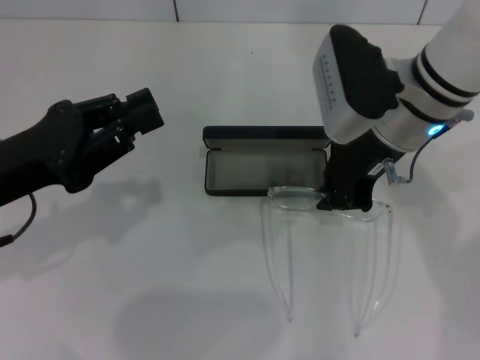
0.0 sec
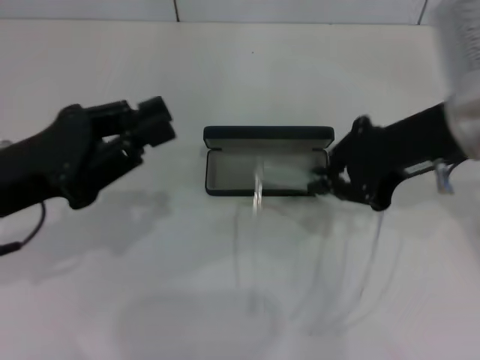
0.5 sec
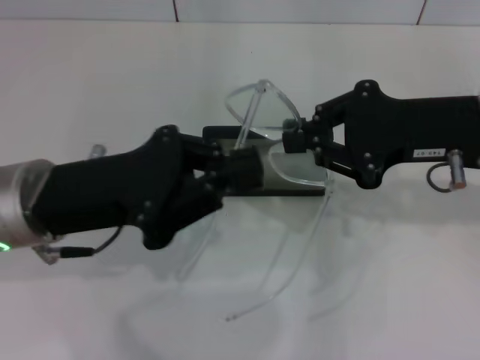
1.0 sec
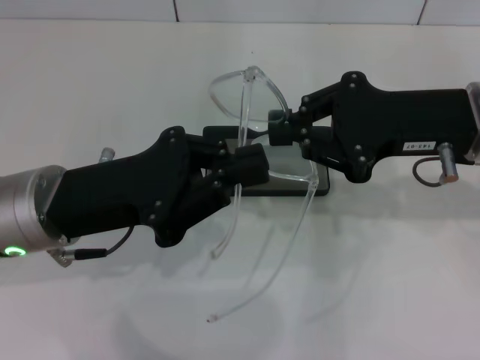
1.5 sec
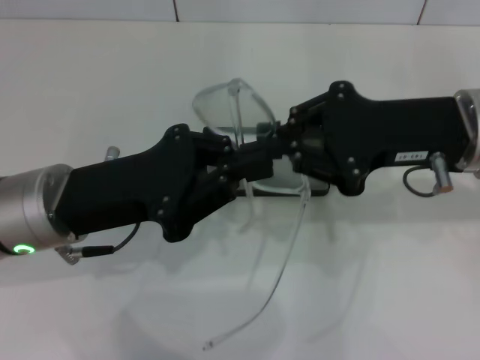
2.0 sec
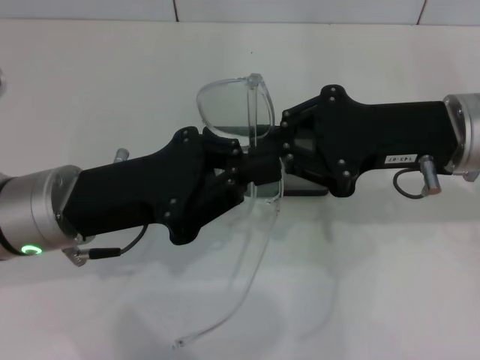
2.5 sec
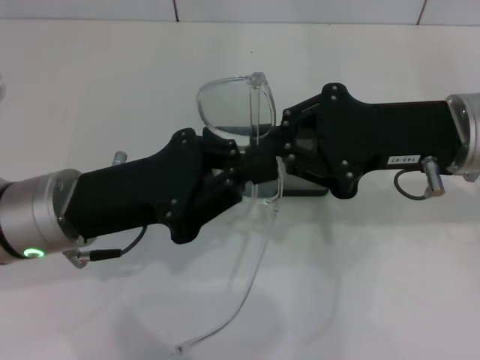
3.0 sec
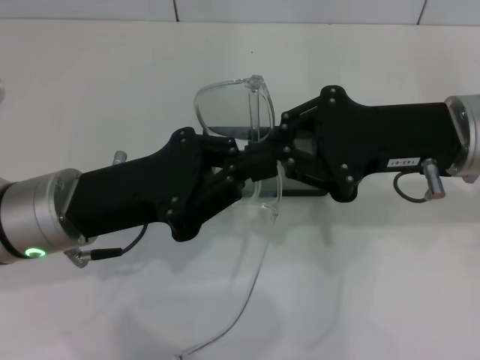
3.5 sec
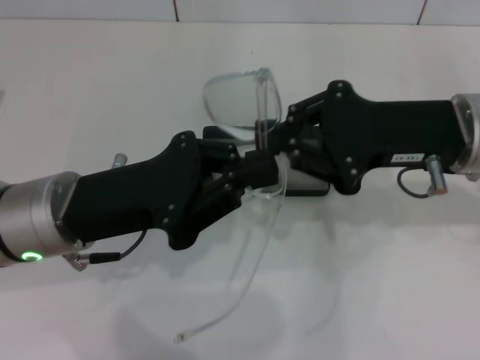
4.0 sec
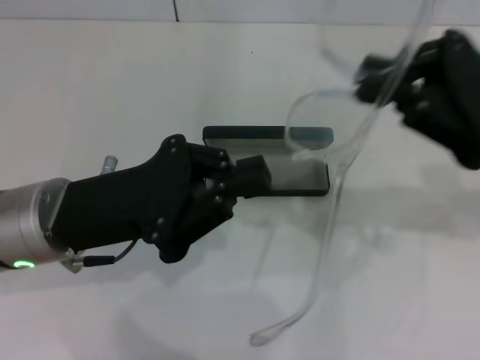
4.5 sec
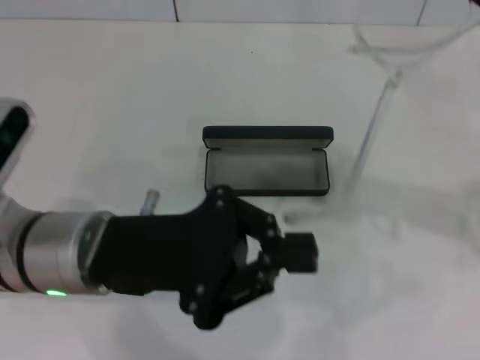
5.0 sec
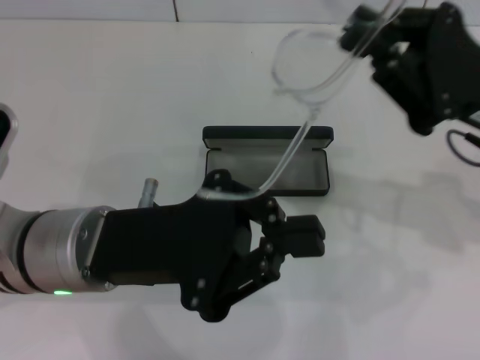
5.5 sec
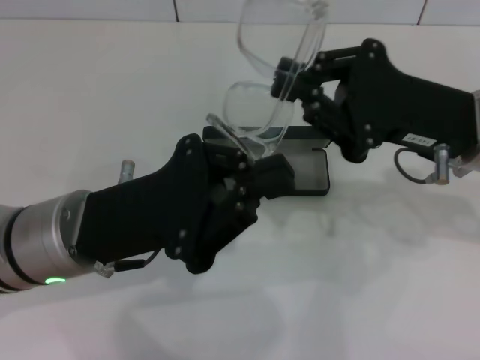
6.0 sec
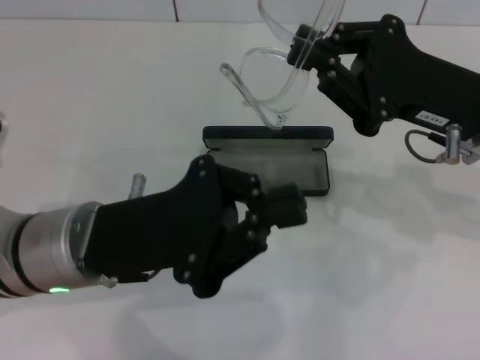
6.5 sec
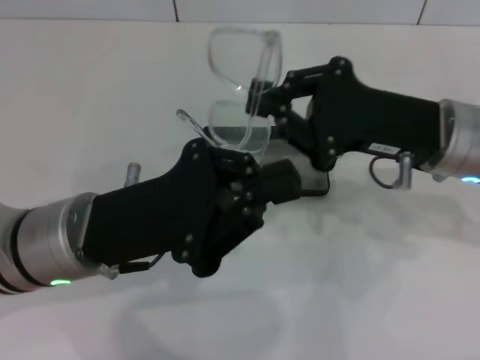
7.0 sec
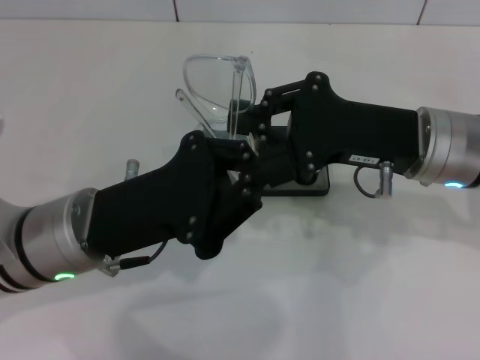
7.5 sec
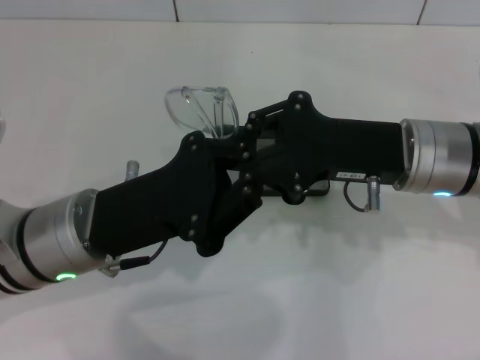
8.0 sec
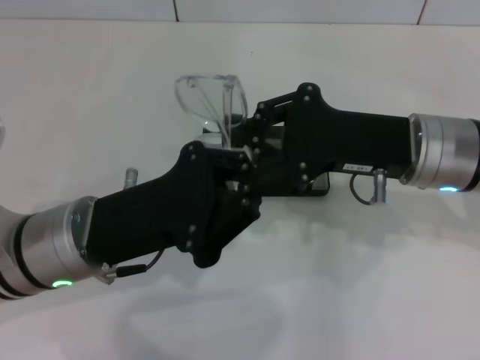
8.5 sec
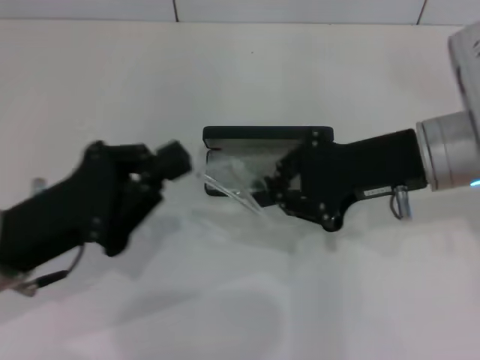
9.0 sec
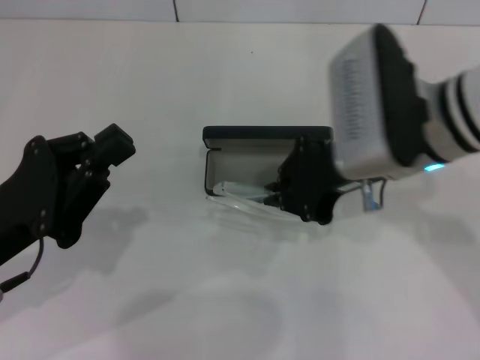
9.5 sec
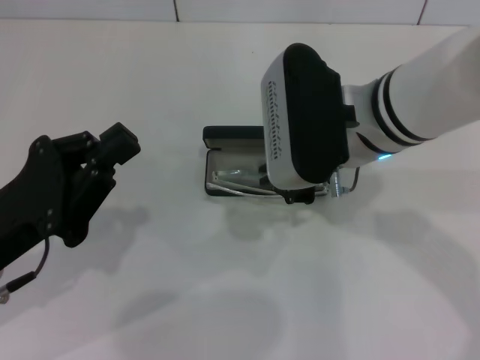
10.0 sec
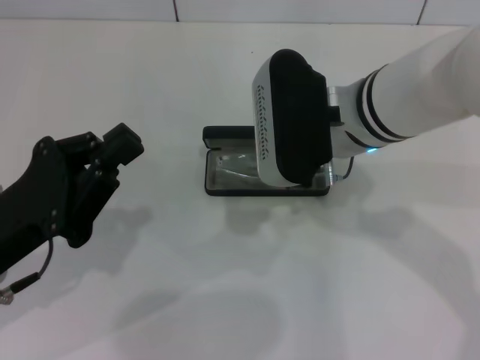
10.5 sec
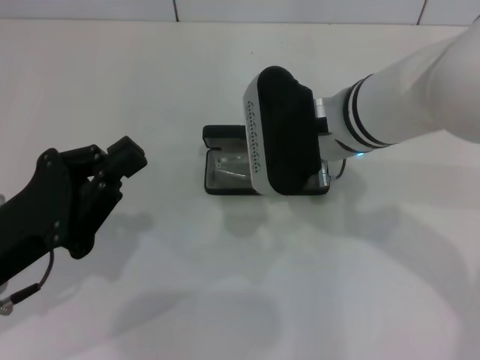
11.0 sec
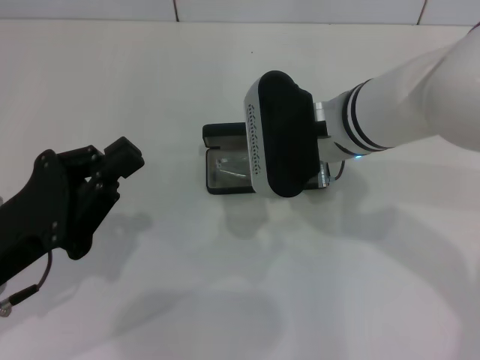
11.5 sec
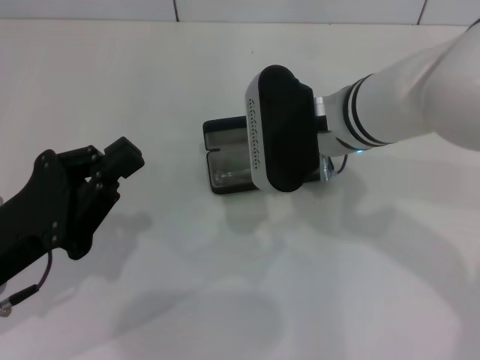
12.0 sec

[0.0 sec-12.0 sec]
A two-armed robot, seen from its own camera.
Step, 0.0 sec to 8.5 sec: Fold the frame with your left hand.
0.0 sec to 2.0 sec: The right gripper is displaced to the right and backward by some 10 cm. The left gripper shifts approximately 5 cm to the right.
2.0 sec to 4.0 sec: Neither gripper changes place.
8.0 sec to 10.0 sec: The two grippers go about 10 cm to the left.
10.0 sec to 12.0 sec: The grippers make only small movements.

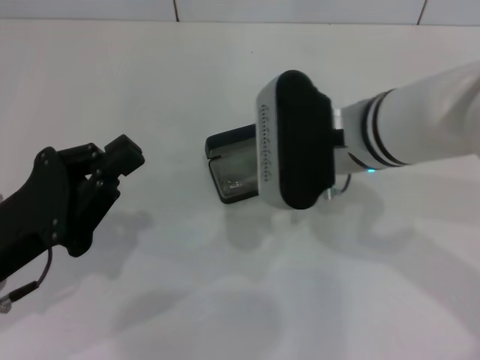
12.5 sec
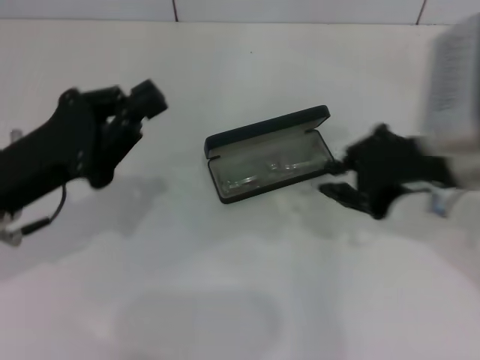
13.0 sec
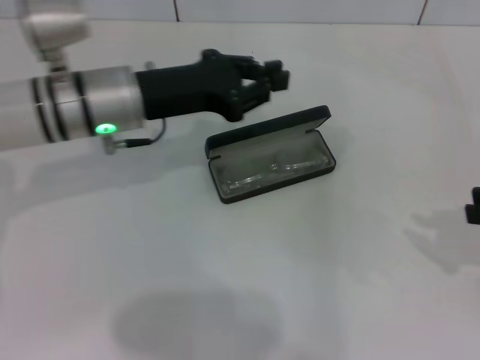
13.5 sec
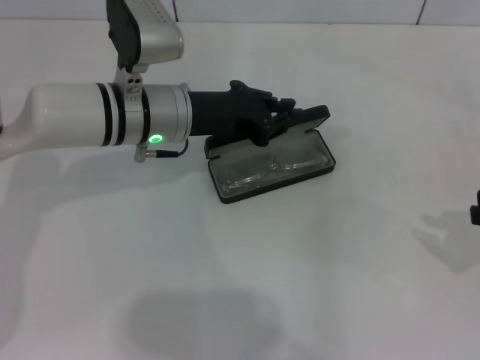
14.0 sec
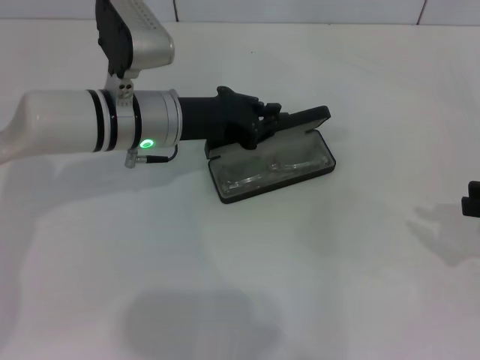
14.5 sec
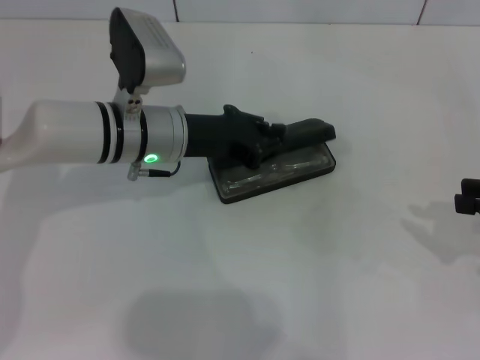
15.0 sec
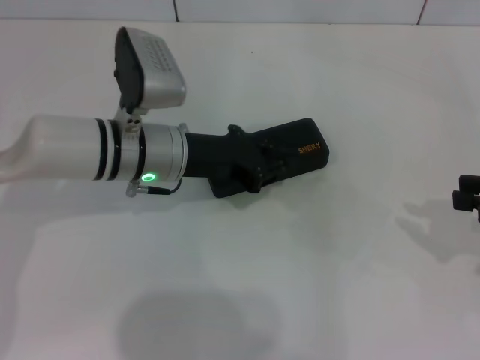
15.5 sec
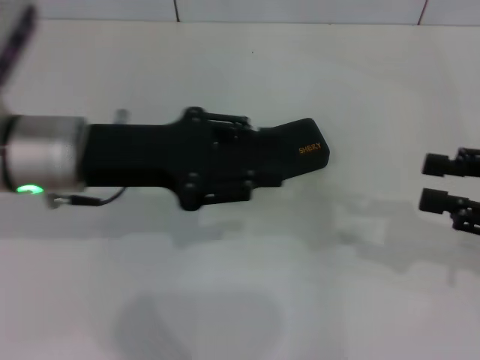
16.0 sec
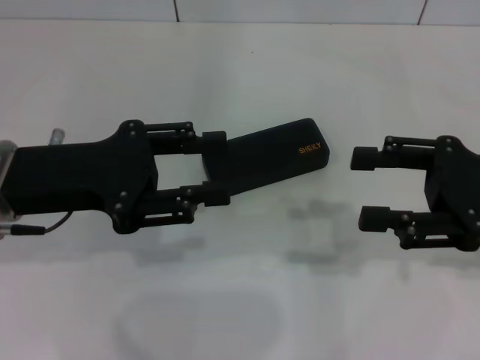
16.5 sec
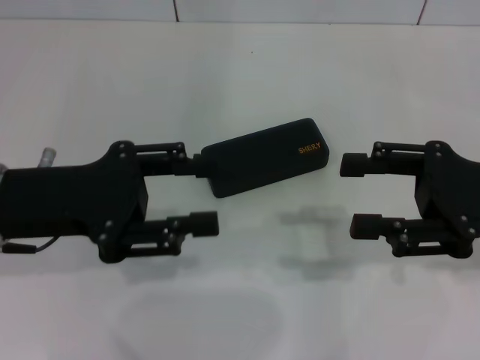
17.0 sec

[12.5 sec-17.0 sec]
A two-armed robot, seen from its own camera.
Step, 13.0 sec to 16.0 sec: Close the glasses case with your left hand.
12.5 sec to 14.5 sec: The right gripper travels to the right by some 30 cm. Meanwhile the left gripper heads forward and to the right, covering about 20 cm.
14.5 sec to 17.0 sec: The right gripper goes roughly 10 cm to the left, and opens its fingers, while the left gripper goes roughly 15 cm backward, to the left and upward, and opens its fingers.

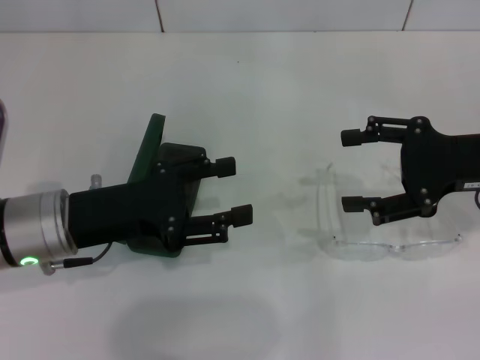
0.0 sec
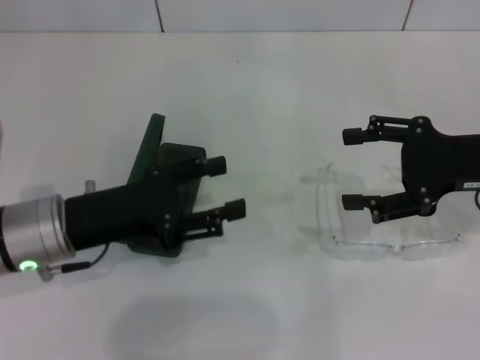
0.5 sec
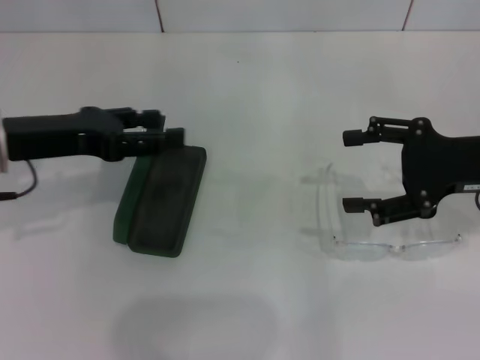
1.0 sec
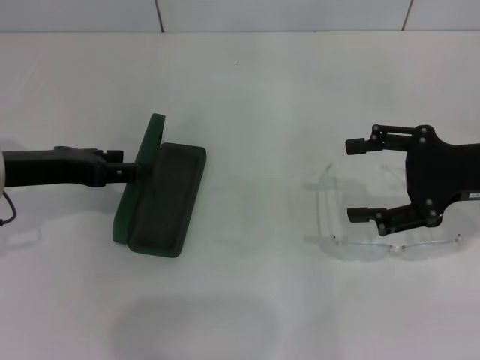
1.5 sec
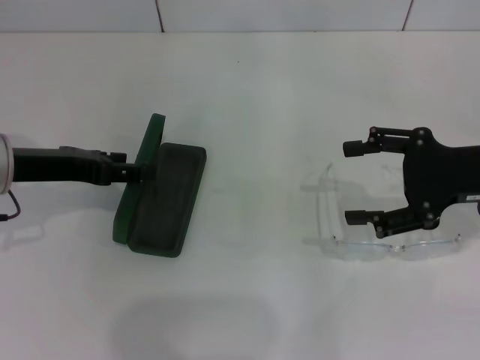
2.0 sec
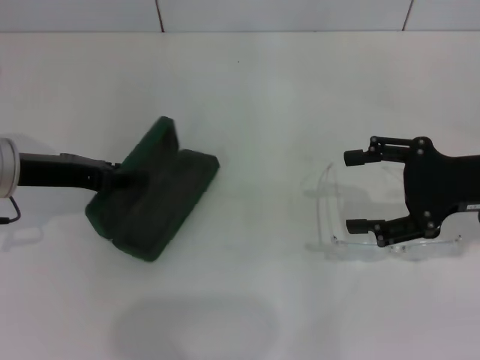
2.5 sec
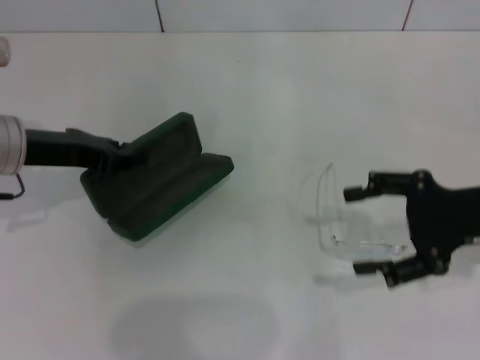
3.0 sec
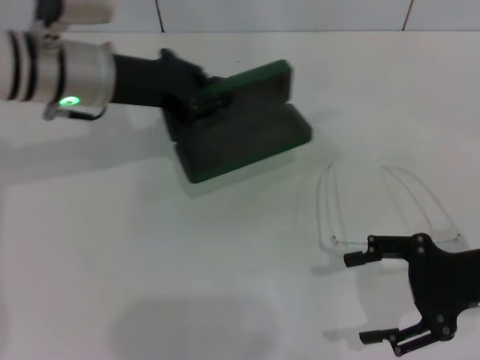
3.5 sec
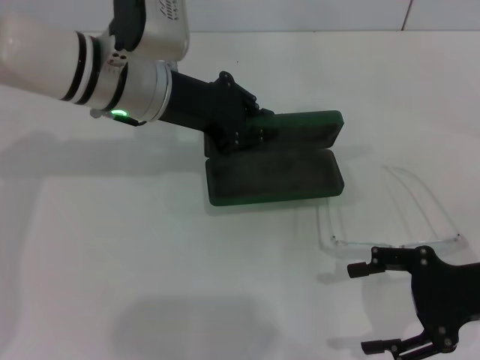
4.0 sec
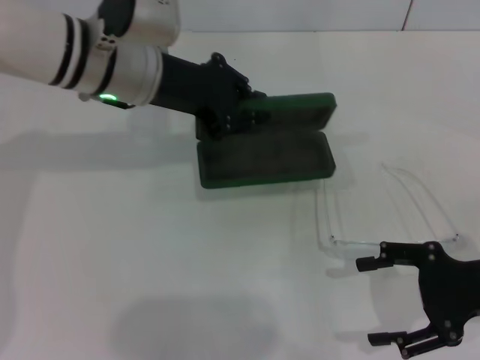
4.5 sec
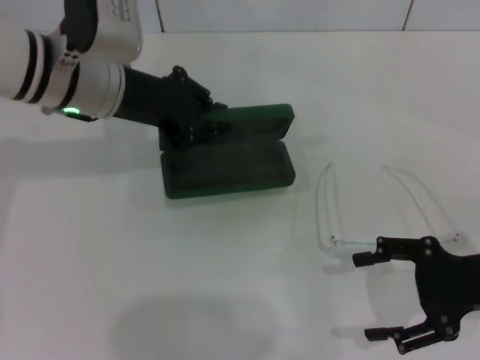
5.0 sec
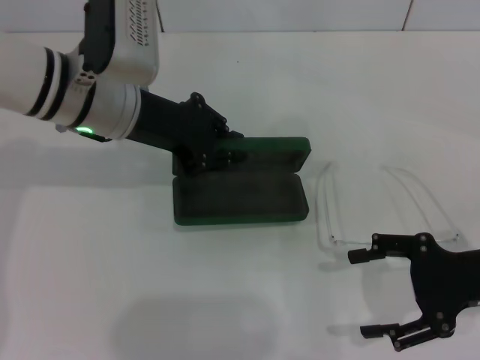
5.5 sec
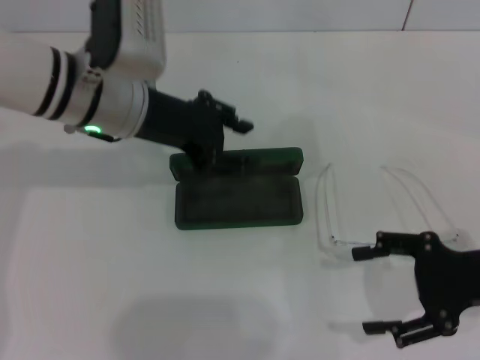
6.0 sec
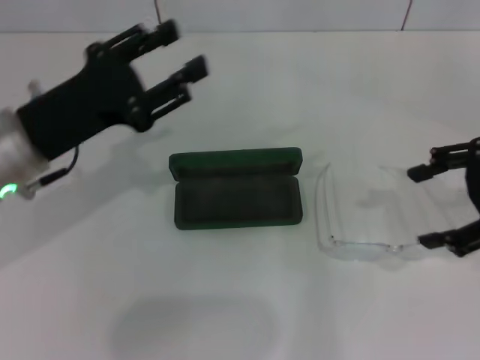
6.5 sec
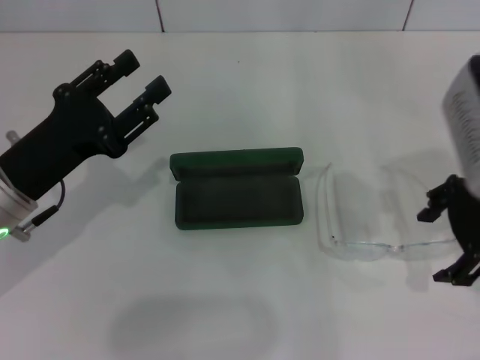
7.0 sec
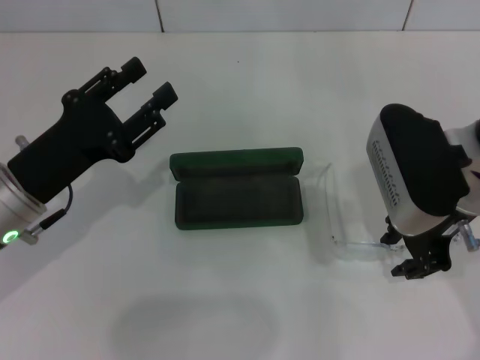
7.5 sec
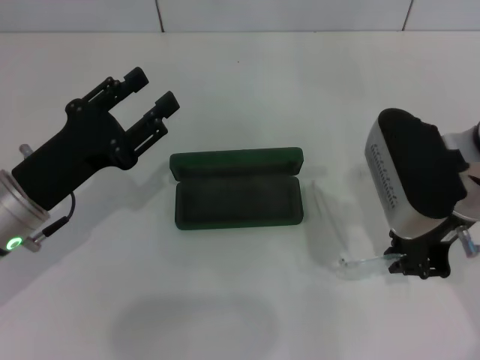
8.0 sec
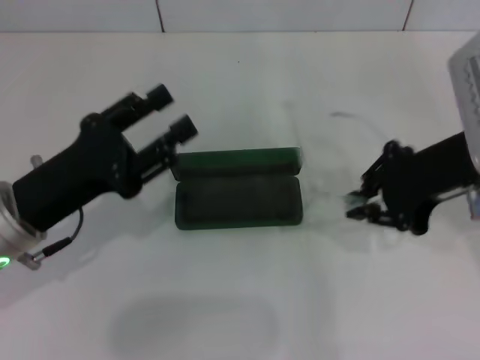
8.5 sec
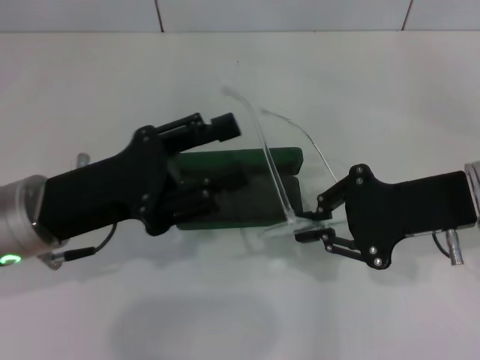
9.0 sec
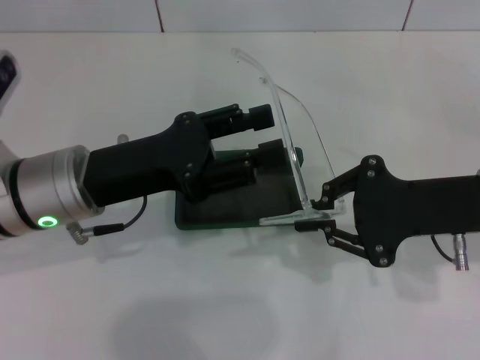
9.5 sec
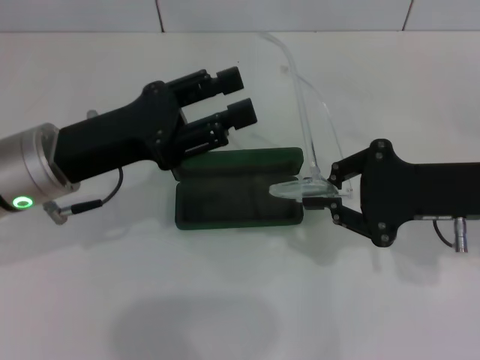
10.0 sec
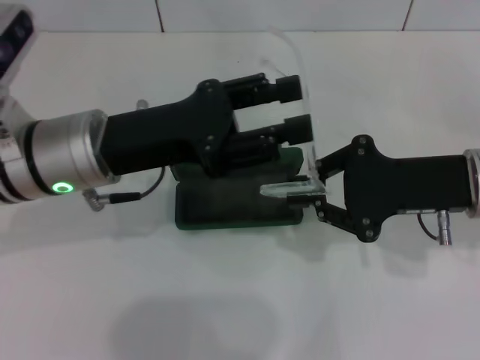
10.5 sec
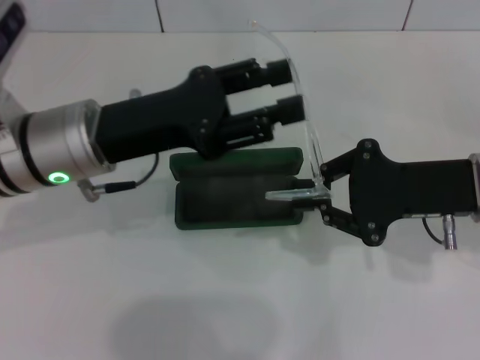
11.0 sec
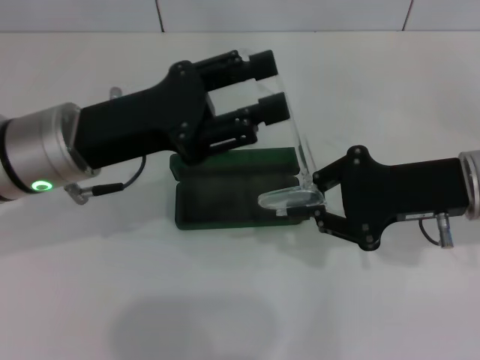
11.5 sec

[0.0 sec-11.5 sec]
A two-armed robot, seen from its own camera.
Step, 0.0 sec to 2.5 sec: Grab the glasses case with your left hand.
Step, 3.0 sec to 5.5 sec: Place the glasses case in the center of the table with your left hand.
Step, 6.0 sec to 8.0 sec: Grab the eyeglass frame with your right hand.
0.0 sec to 2.0 sec: The left gripper is displaced to the left and forward by some 10 cm.
2.0 sec to 4.0 sec: The right gripper is displaced backward and downward by some 10 cm. Meanwhile the left gripper travels to the right and forward by some 15 cm, and closes up.
4.0 sec to 6.0 sec: The grippers move only a little.
6.0 sec to 7.5 sec: The right gripper travels to the left, upward and forward by approximately 15 cm. The left gripper goes about 15 cm backward, to the left and downward, and opens its fingers.
7.5 sec to 9.5 sec: The two grippers go roughly 5 cm to the right. The right gripper closes.
